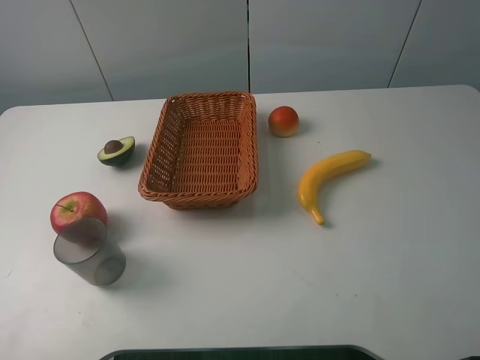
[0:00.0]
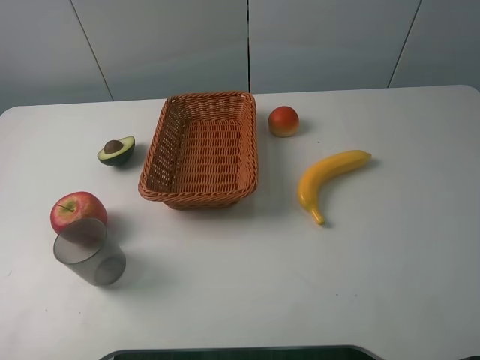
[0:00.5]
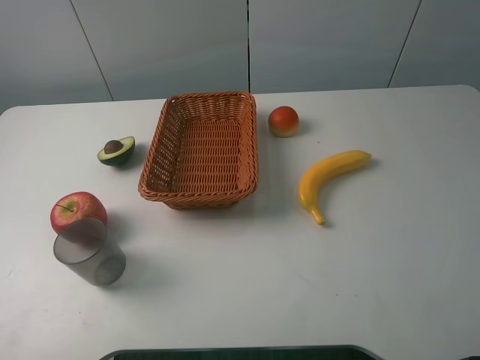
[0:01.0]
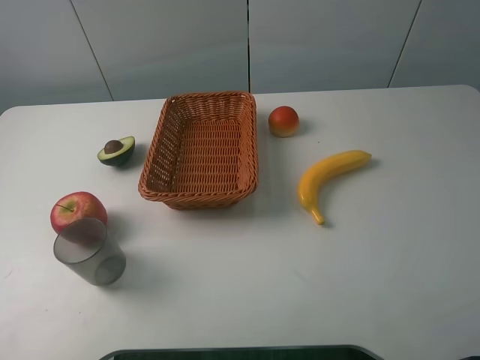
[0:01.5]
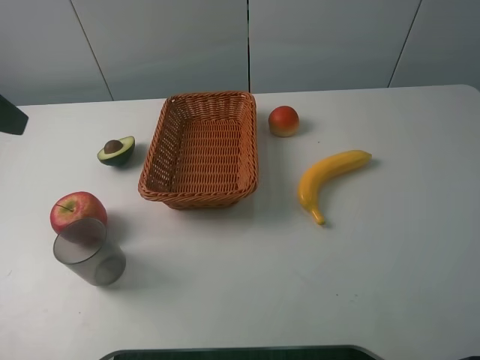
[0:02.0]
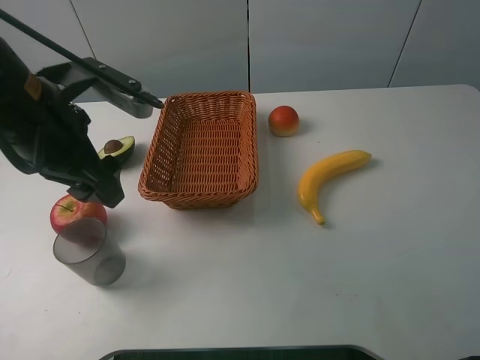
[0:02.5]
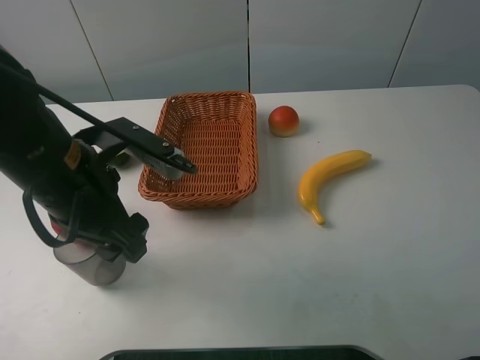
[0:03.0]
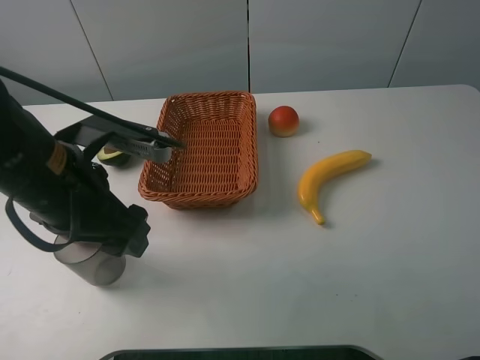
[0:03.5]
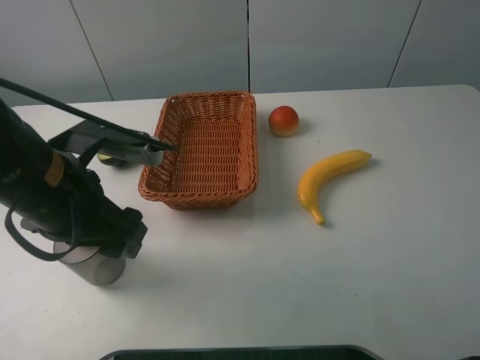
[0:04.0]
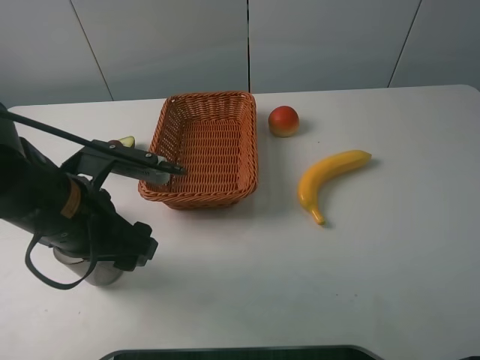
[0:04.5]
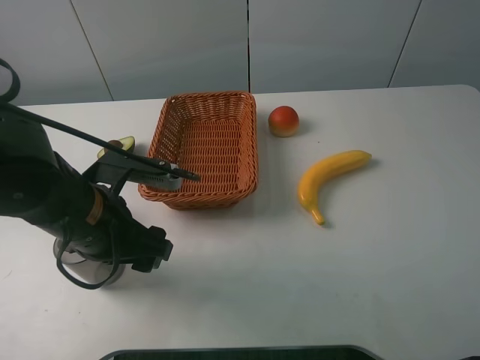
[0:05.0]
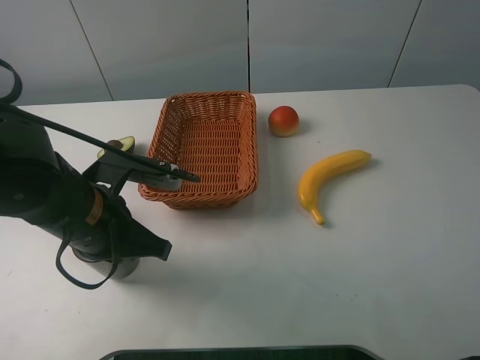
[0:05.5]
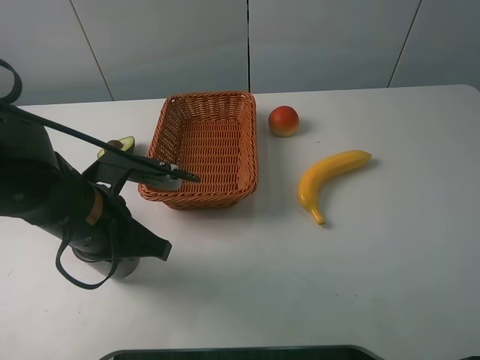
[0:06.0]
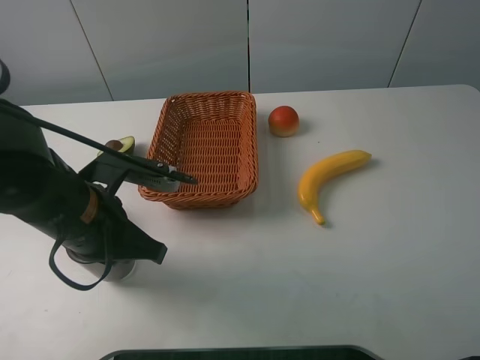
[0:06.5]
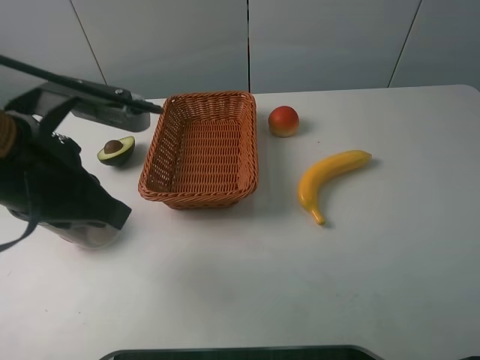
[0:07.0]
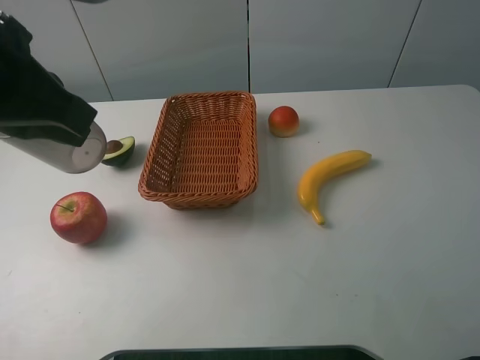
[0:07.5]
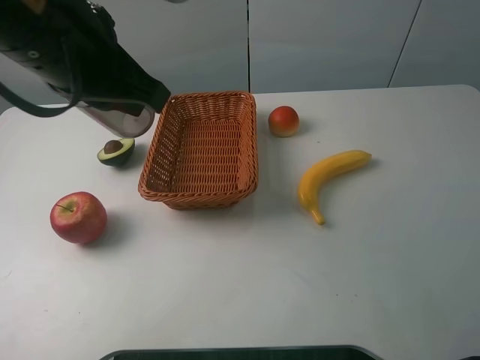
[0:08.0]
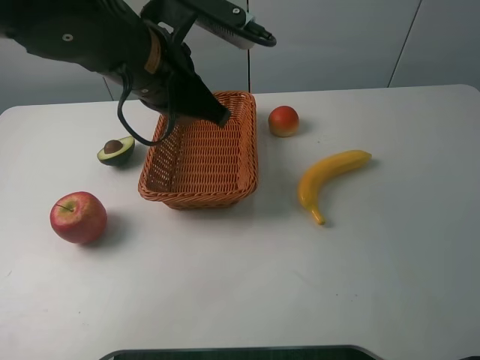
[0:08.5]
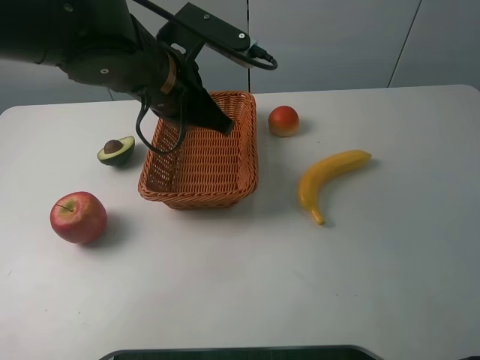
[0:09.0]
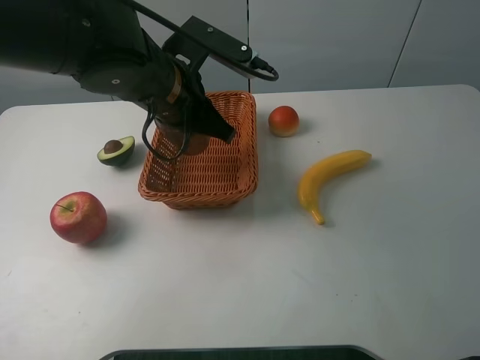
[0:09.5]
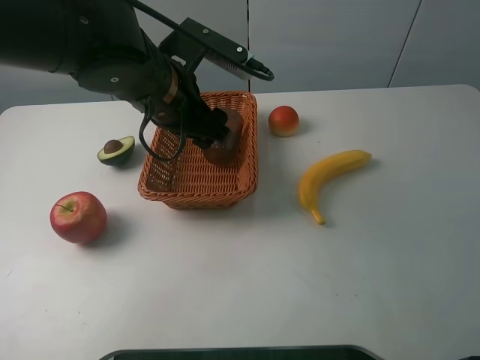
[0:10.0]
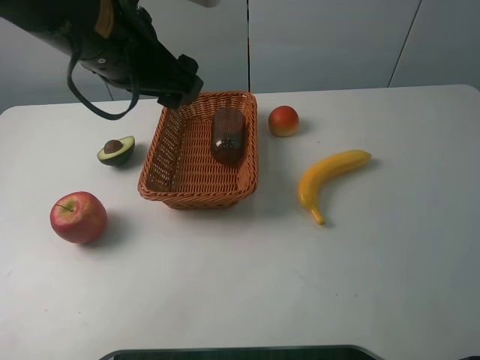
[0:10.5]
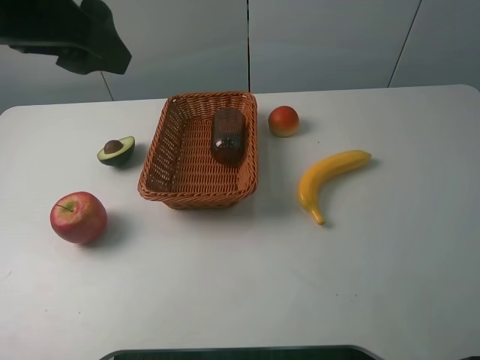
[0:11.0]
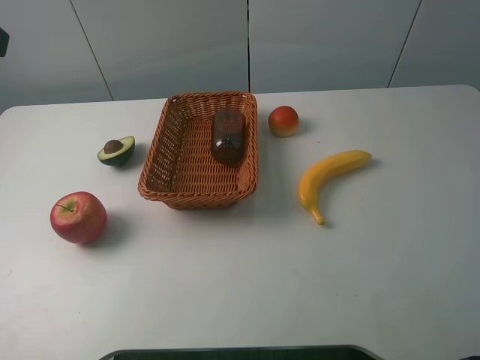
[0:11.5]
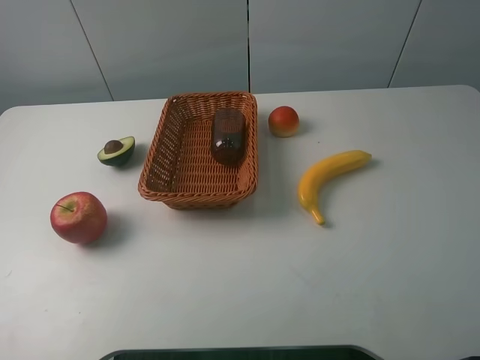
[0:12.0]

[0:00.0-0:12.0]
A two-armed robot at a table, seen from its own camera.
0:02.0 to 0:04.0: The left gripper travels downward and to the right by about 15 cm.
0:04.0 to 0:06.0: The left gripper goes about 5 cm downward, and closes its fingers.
0:06.0 to 0:08.0: The left gripper shifts approximately 15 cm upward.
0:08.0 to 0:10.0: The left gripper moves downward and forward, approximately 10 cm, and opens.
0:10.0 to 0:12.0: The left gripper heads to the left, backward and upward, covering about 35 cm.

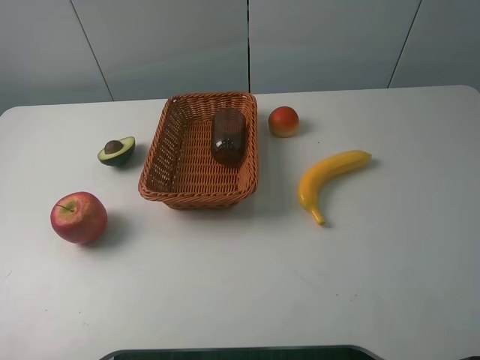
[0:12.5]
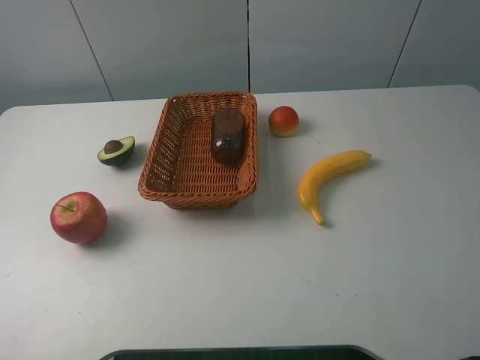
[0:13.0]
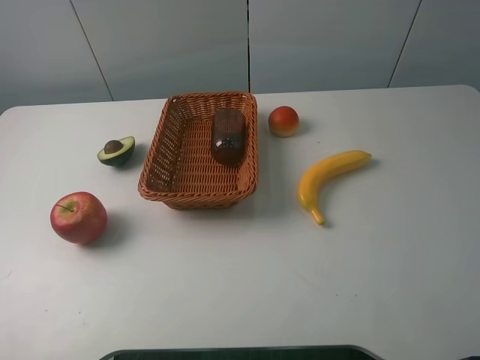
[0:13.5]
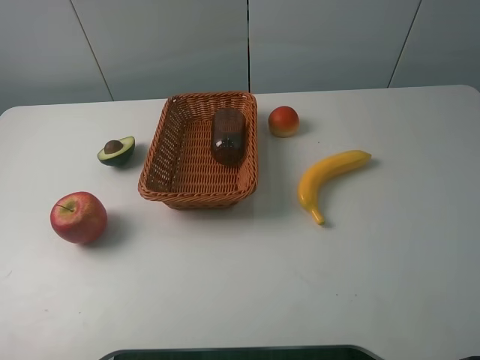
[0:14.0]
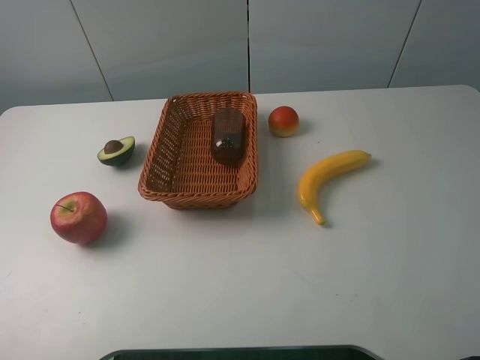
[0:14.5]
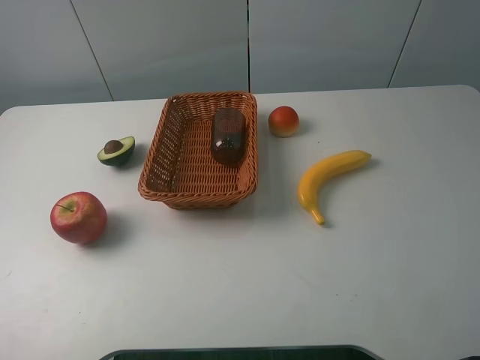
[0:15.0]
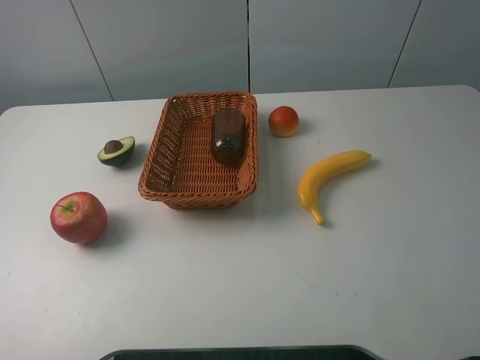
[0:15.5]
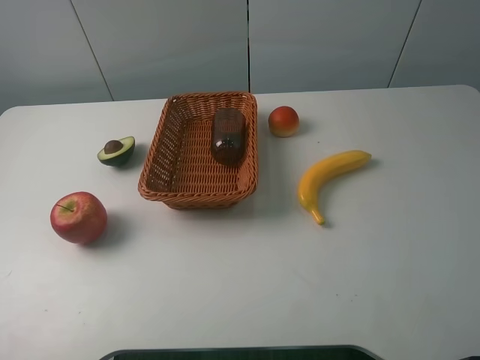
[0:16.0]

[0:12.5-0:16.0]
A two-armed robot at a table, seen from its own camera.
0:14.5 to 0:16.0: The two grippers keep their place.
